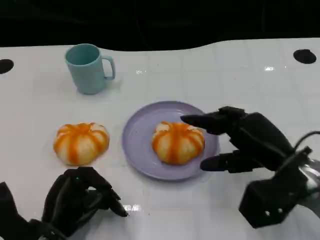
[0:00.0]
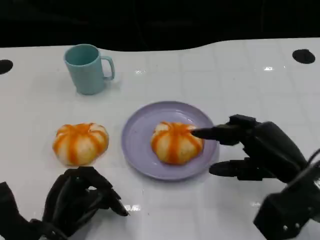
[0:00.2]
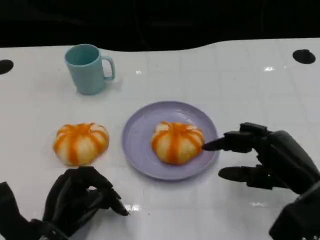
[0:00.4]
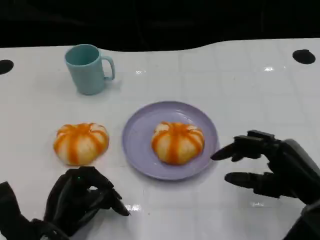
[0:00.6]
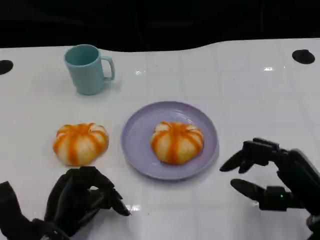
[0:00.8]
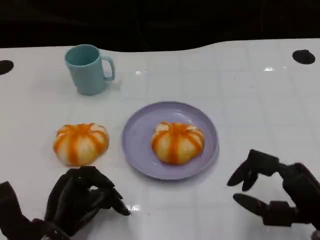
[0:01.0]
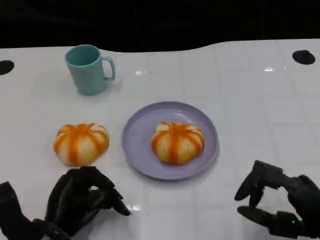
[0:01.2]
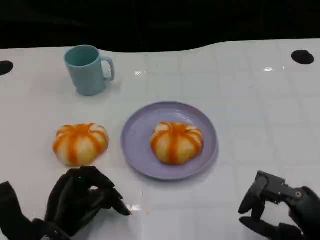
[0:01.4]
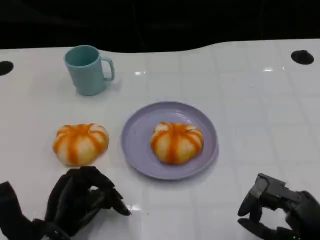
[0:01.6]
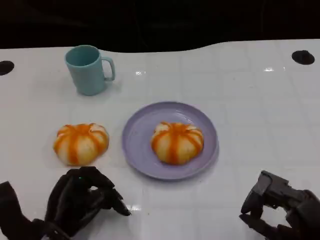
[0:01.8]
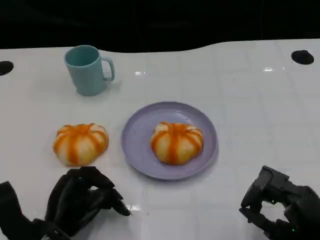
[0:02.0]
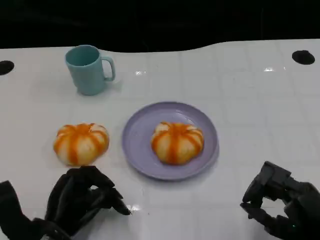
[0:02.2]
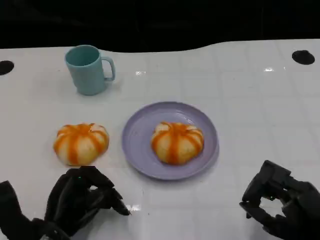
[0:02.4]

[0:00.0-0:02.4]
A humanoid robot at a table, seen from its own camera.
Task of the whole recording: Grasp the bread from the table and place it into the plate.
0:00.0 to 0:01.2: The right hand heads backward and to the right, covering approximately 10 cm.
0:01.2 to 0:02.4: The hands stay close to where they were, moving slightly.

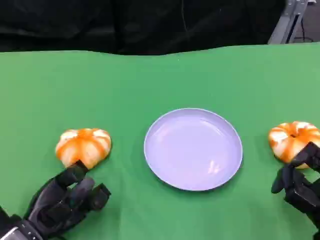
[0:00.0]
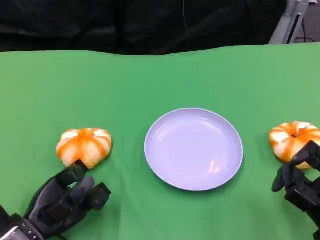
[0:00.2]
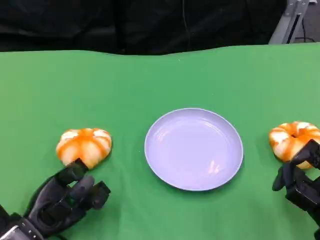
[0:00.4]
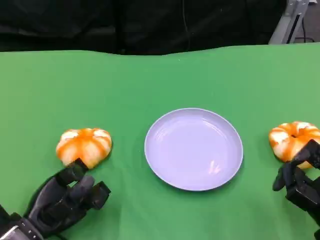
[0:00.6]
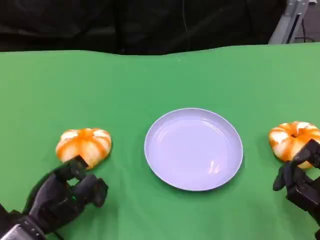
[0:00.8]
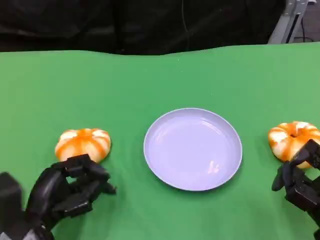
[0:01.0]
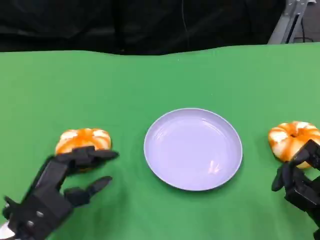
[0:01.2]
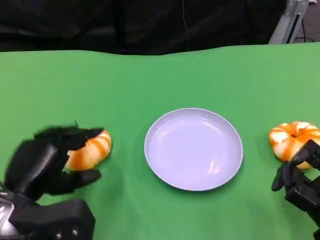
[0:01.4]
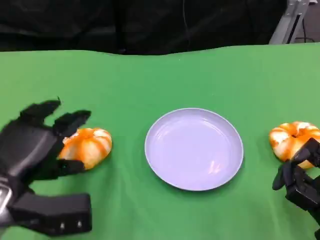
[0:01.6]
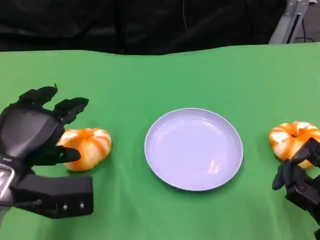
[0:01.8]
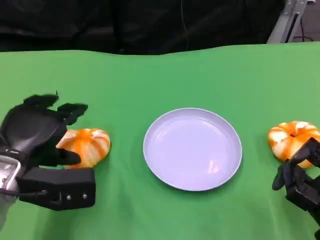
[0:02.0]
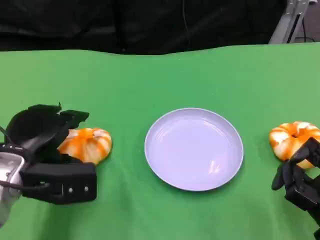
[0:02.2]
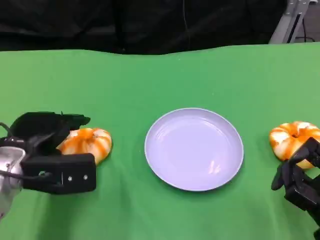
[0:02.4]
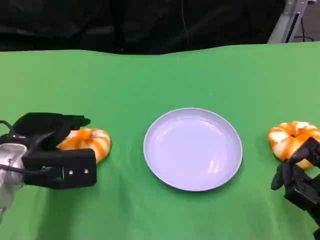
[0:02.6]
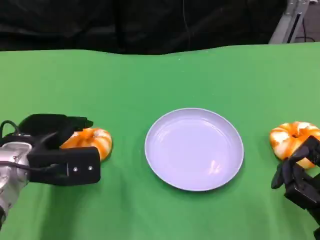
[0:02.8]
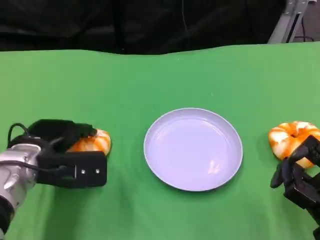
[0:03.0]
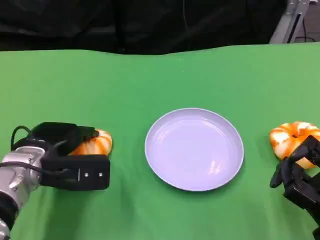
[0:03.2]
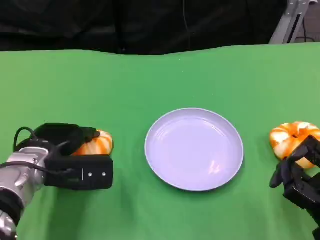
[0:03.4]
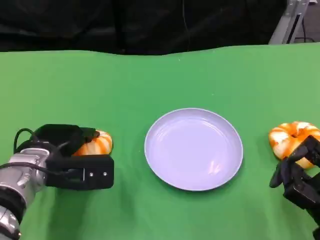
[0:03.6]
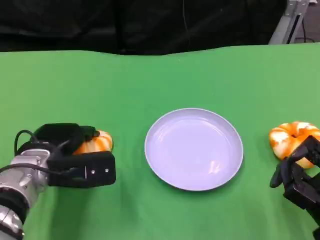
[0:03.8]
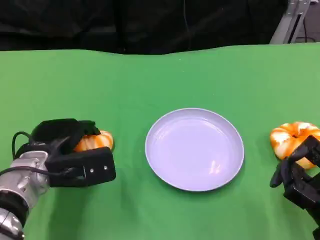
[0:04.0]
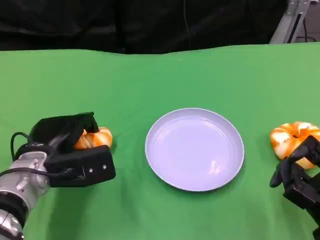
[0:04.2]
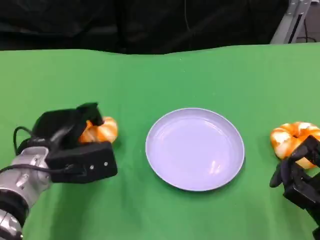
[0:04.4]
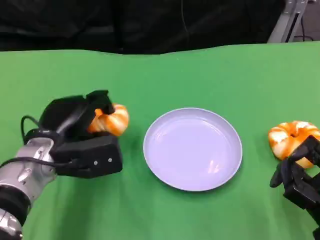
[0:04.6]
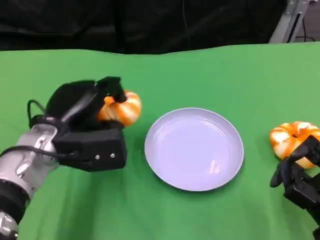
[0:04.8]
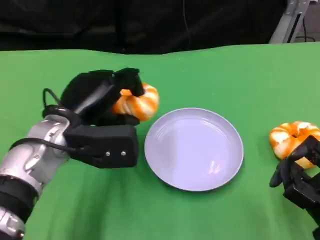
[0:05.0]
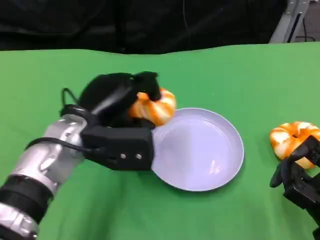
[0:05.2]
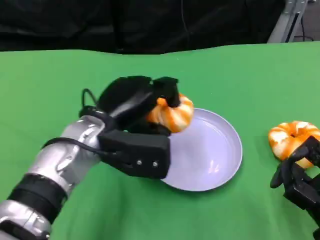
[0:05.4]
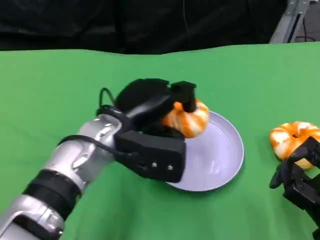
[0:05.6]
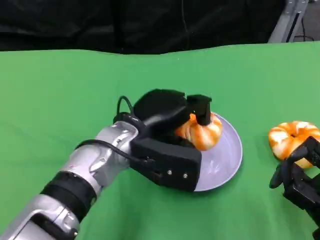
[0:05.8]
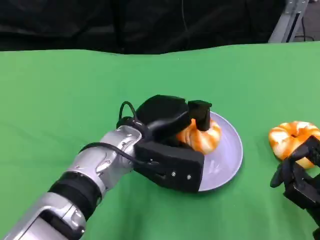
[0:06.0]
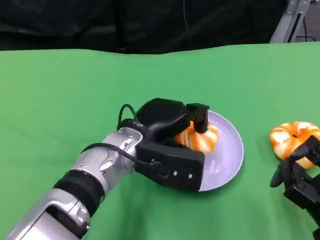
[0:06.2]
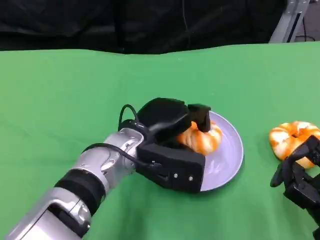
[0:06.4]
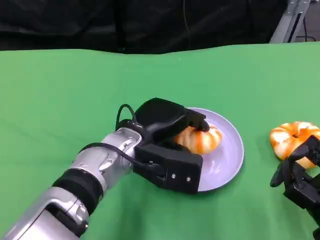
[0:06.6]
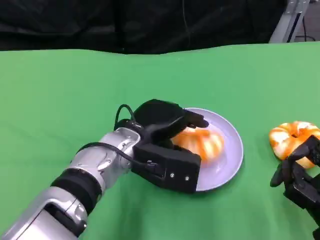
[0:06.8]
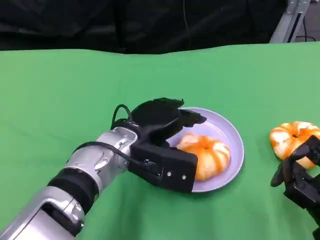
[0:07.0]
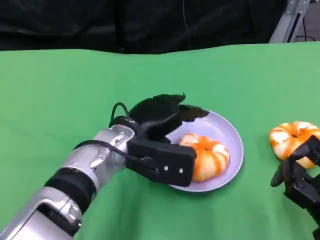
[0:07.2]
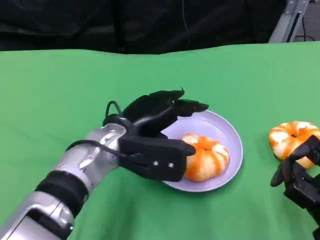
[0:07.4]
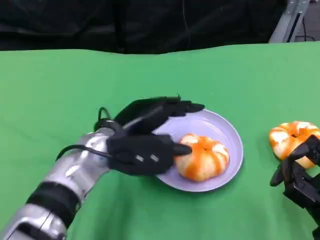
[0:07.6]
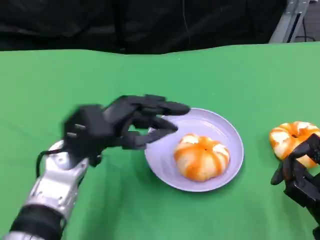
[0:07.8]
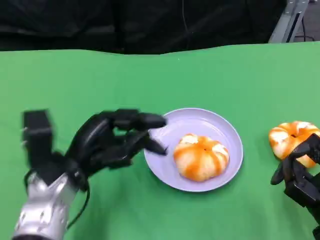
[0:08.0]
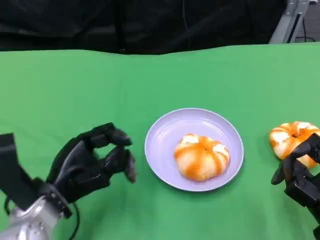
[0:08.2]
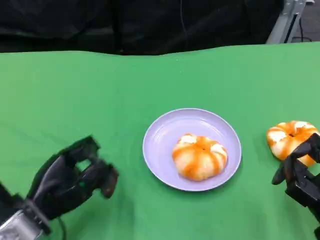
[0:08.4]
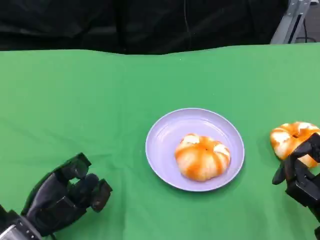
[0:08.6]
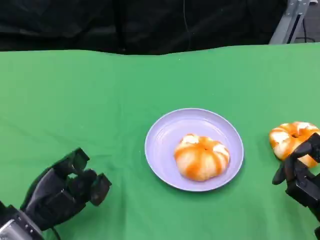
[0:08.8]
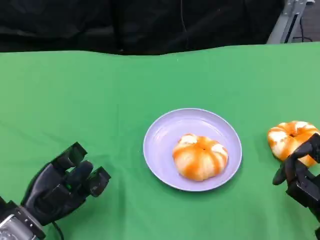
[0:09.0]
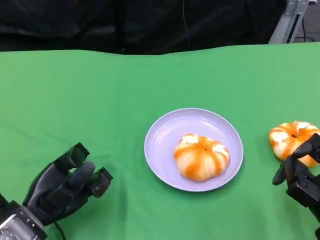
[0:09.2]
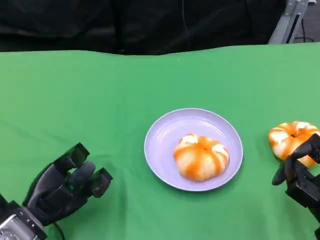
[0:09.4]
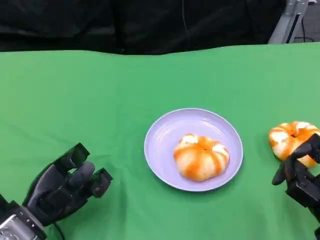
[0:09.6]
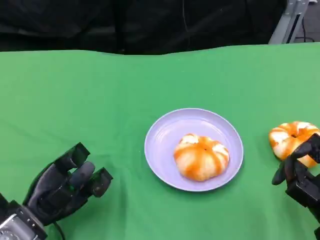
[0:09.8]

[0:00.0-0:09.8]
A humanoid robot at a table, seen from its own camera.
Task of the whole recording: Grasp the bread from the table and place it into the plate.
0:00.0 to 0:01.4: The left hand moves upward, some 10 cm.
0:01.4 to 0:02.8: The left hand is displaced forward by approximately 10 cm.
0:02.8 to 0:04.2: The hands make only small movements.
0:04.2 to 0:05.6: The left hand is displaced to the right and upward by roughly 15 cm.
0:05.6 to 0:07.0: The hands stay close to where they were, moving slightly.
0:07.0 to 0:08.4: The left hand is displaced to the left, backward and downward by approximately 20 cm.
0:08.4 to 0:09.8: The hands move only a little.

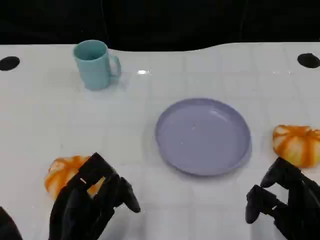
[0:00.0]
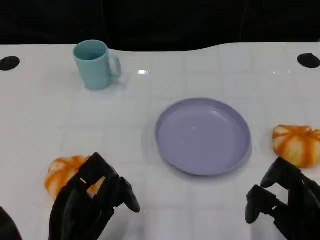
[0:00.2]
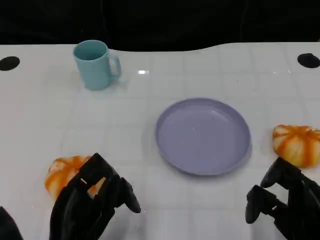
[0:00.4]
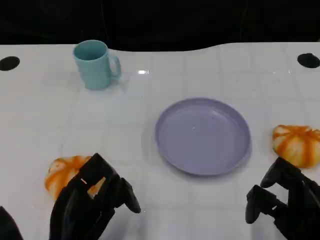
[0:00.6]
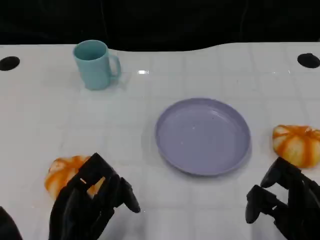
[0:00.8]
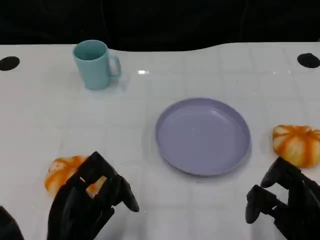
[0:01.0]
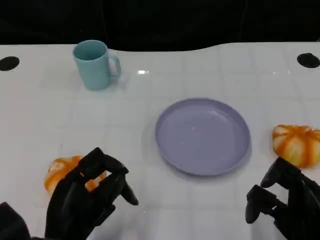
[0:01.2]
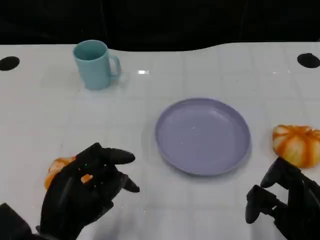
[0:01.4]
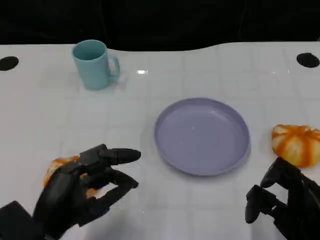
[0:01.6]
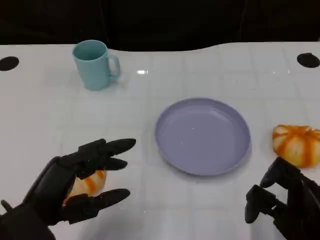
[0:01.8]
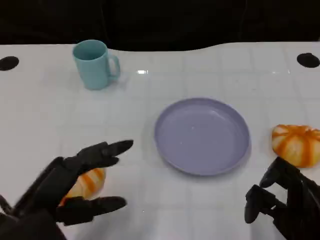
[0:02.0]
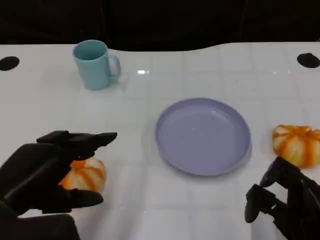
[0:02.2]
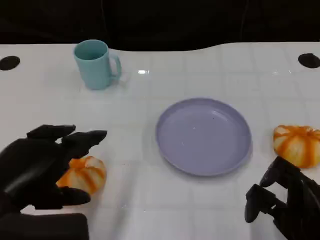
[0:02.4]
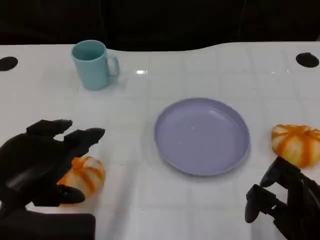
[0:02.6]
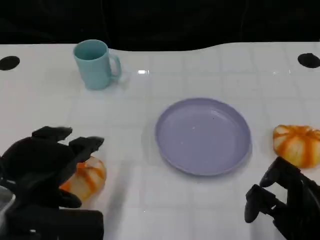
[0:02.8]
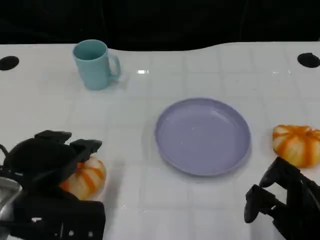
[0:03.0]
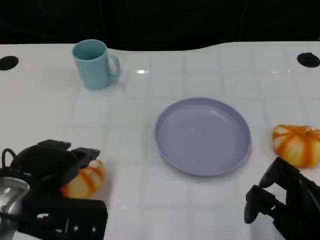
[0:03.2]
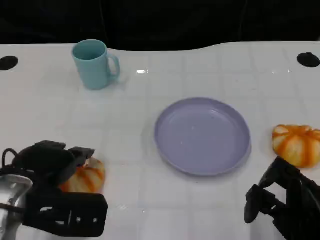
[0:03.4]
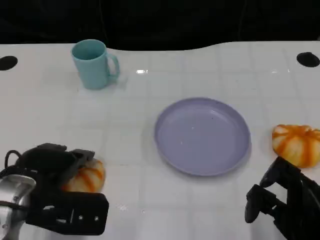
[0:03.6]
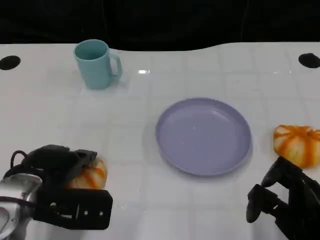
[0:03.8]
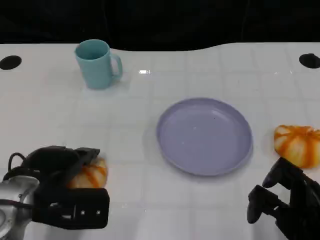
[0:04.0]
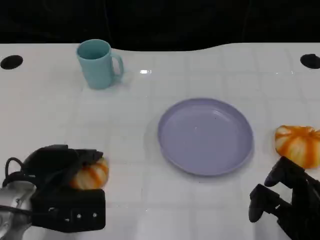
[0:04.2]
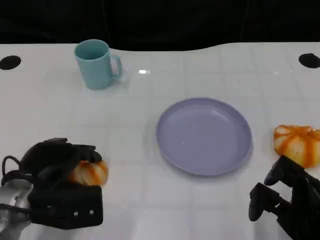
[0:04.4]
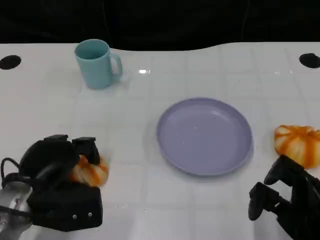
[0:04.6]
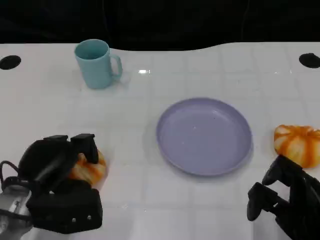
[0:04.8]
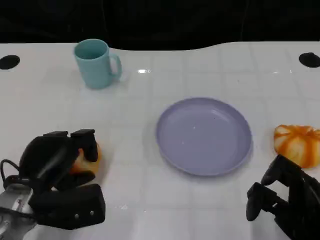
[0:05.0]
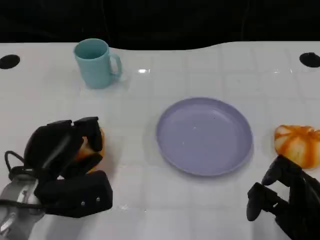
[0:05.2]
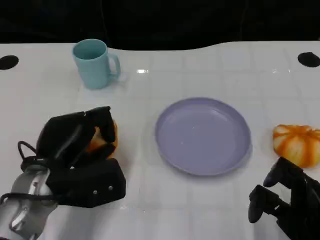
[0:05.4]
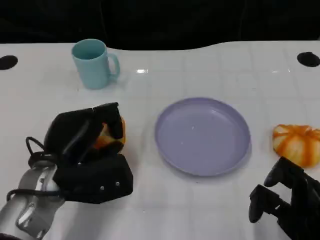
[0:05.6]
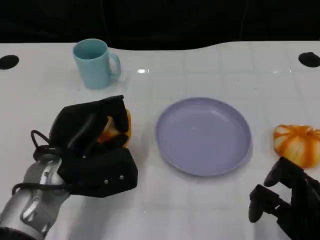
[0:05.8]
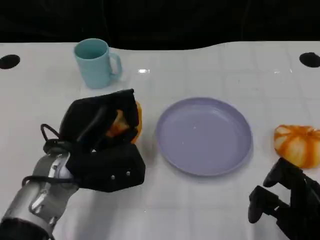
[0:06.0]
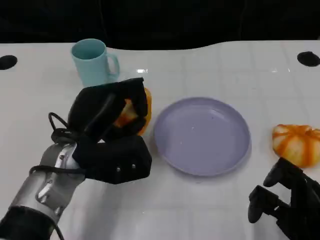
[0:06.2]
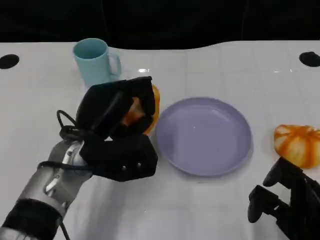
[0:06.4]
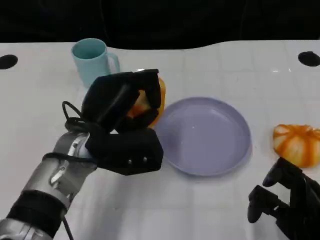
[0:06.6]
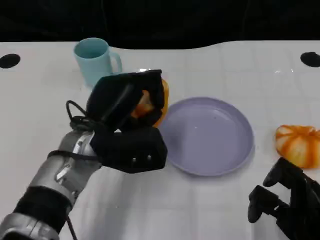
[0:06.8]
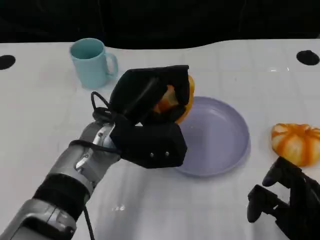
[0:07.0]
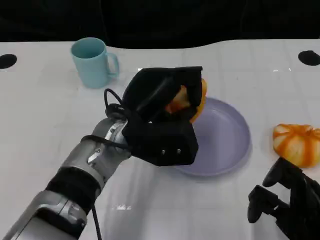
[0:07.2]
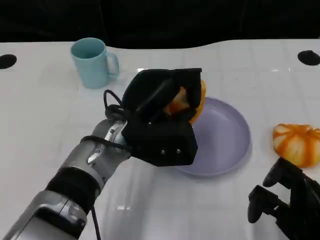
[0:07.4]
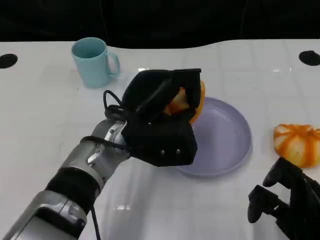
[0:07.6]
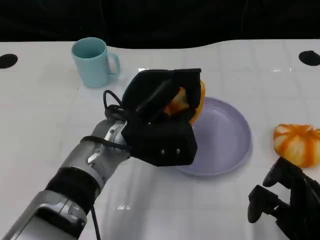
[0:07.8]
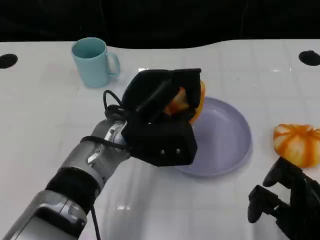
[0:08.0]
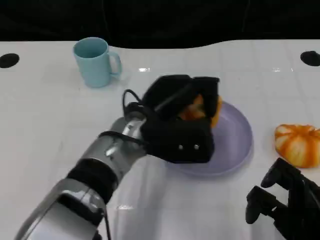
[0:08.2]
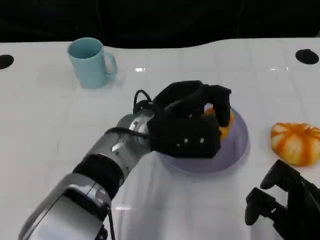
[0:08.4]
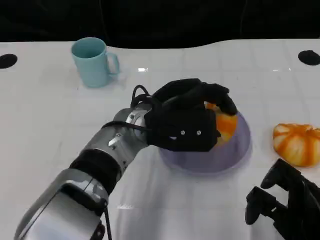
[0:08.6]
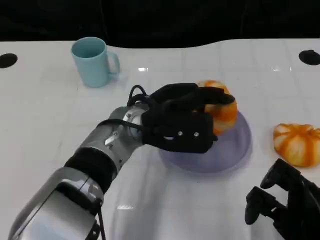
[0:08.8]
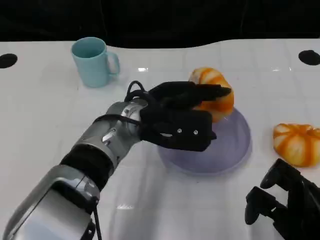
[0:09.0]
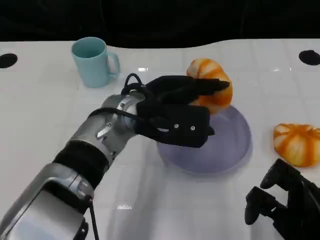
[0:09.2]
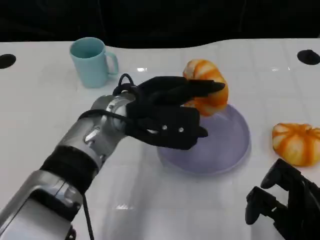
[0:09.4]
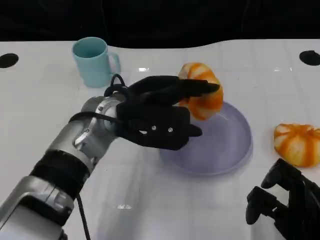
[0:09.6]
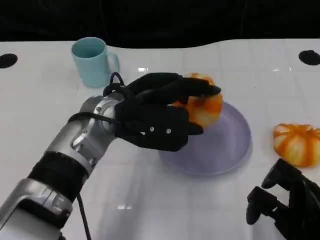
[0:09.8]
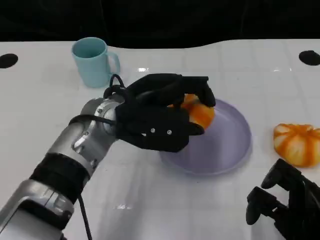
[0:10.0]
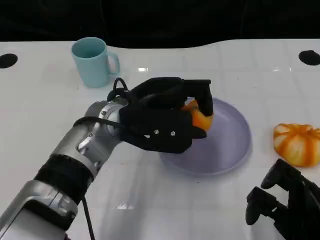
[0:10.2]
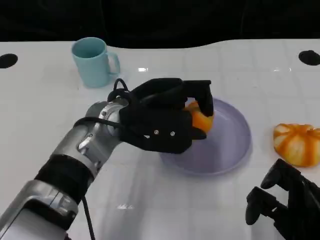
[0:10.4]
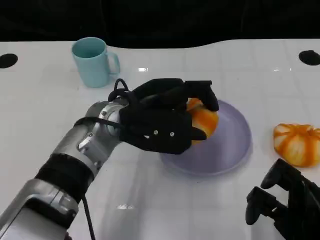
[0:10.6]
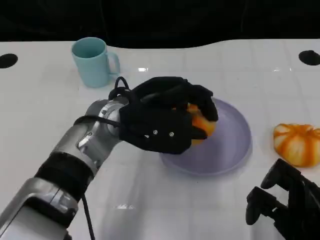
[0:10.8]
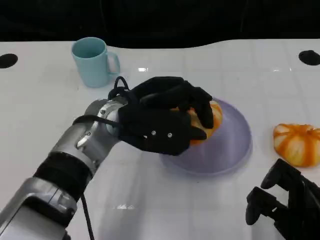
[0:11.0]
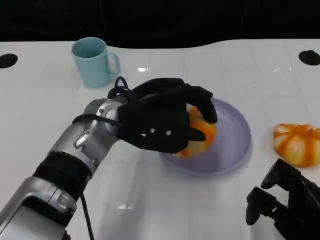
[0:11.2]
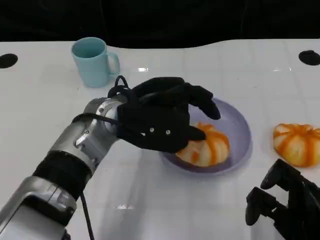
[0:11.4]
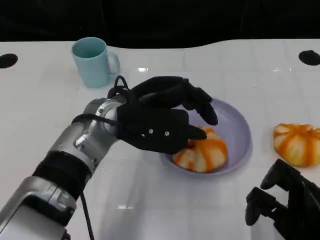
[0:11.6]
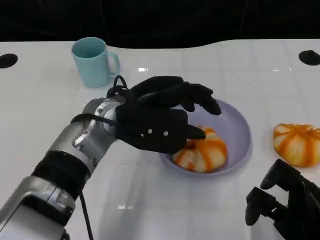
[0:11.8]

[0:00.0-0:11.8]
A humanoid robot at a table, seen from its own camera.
Task of the whole recording: Grasp the bread from the table and place it into the plate.
0:01.4 to 0:03.0: The left hand moves upward, about 5 cm.
0:03.0 to 0:04.4: The left hand shifts roughly 10 cm downward.
0:04.4 to 0:06.0: The left hand goes about 5 cm to the right.
0:06.0 to 0:07.4: The left hand heads to the right, covering some 10 cm.
0:10.4 to 0:11.8: The two hands keep their place.
